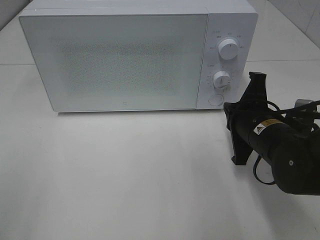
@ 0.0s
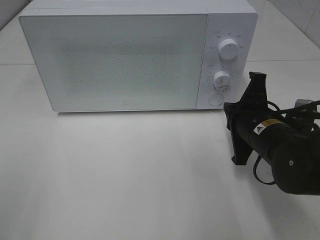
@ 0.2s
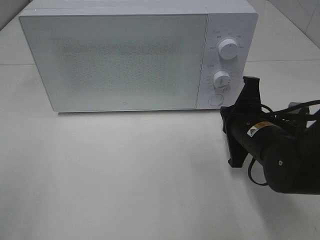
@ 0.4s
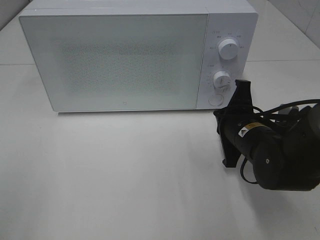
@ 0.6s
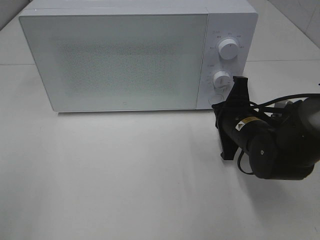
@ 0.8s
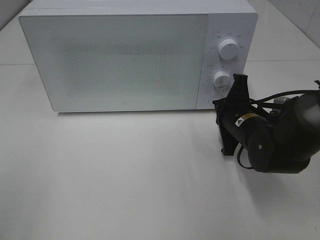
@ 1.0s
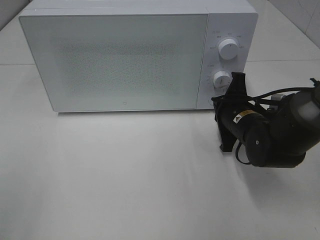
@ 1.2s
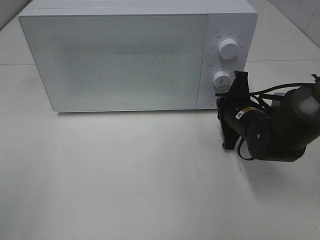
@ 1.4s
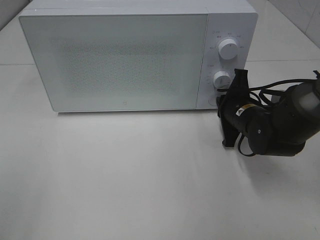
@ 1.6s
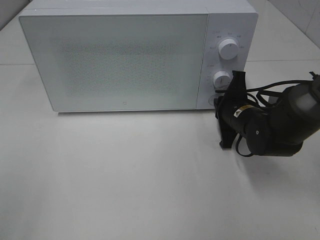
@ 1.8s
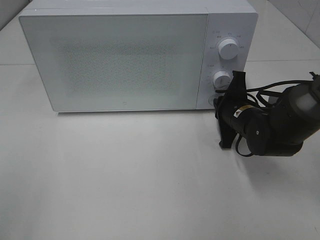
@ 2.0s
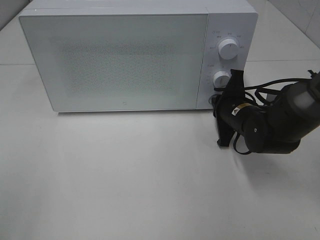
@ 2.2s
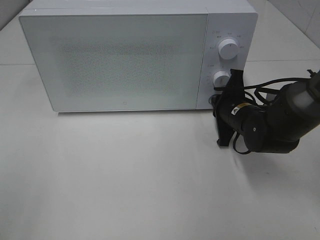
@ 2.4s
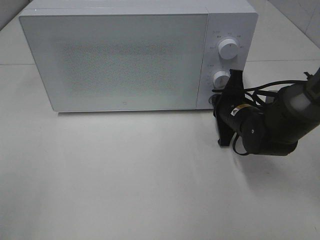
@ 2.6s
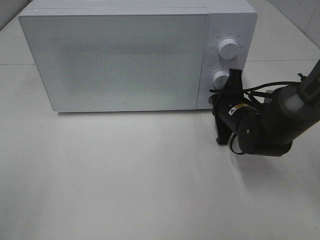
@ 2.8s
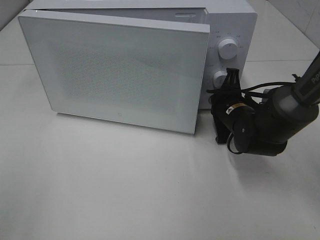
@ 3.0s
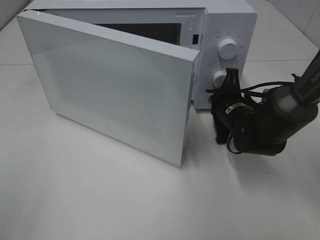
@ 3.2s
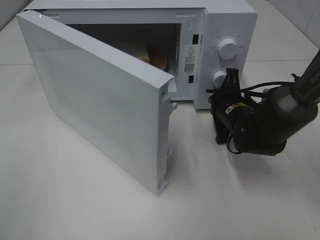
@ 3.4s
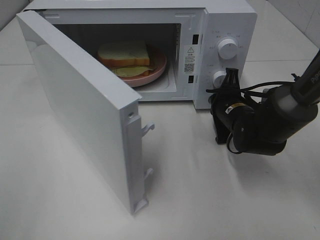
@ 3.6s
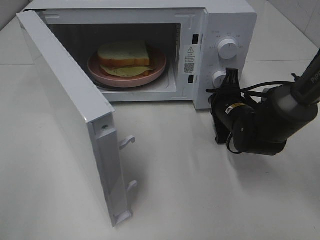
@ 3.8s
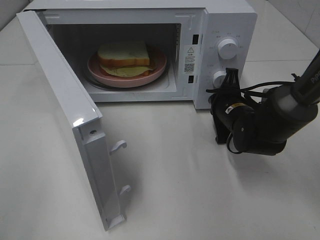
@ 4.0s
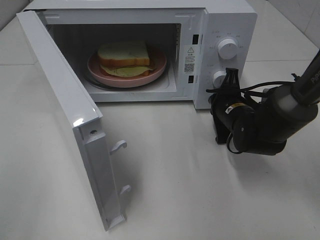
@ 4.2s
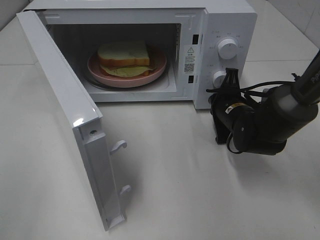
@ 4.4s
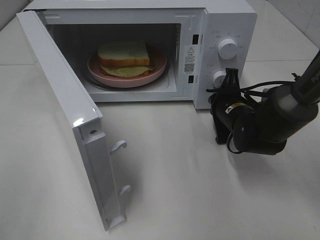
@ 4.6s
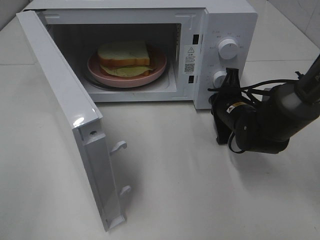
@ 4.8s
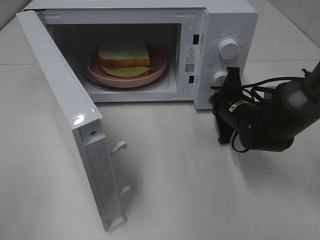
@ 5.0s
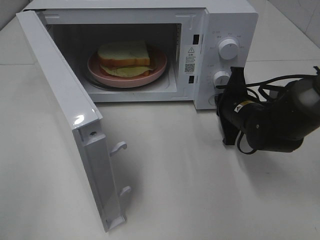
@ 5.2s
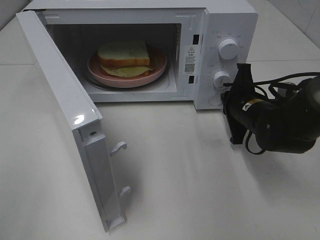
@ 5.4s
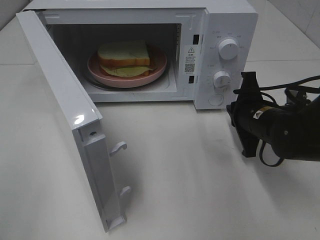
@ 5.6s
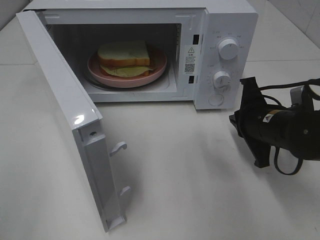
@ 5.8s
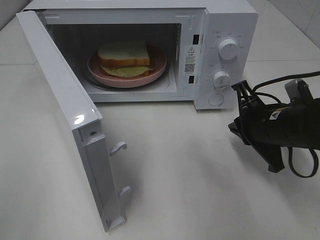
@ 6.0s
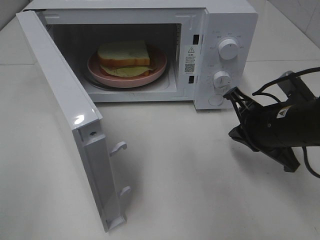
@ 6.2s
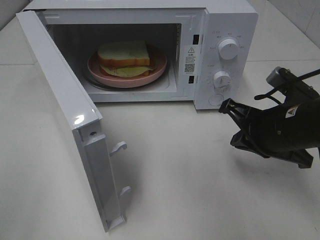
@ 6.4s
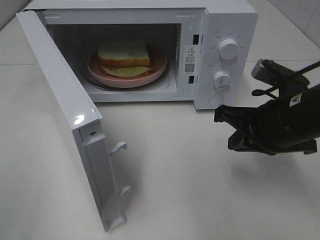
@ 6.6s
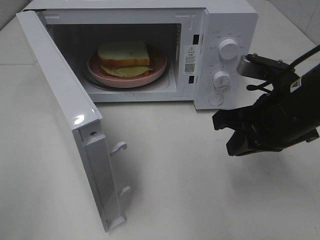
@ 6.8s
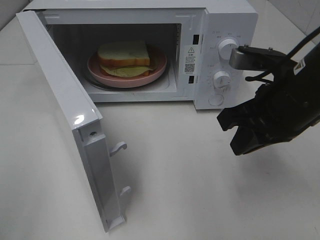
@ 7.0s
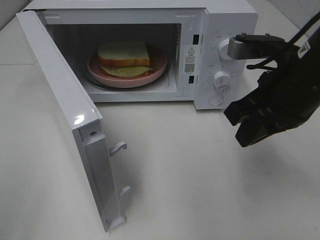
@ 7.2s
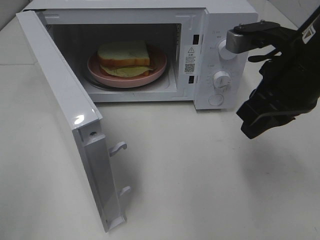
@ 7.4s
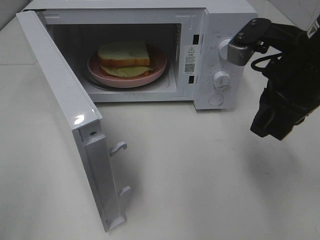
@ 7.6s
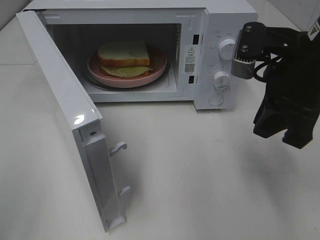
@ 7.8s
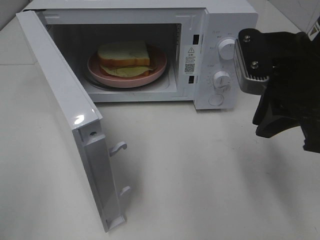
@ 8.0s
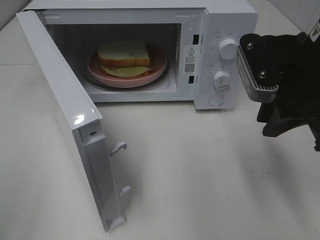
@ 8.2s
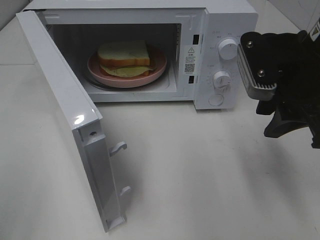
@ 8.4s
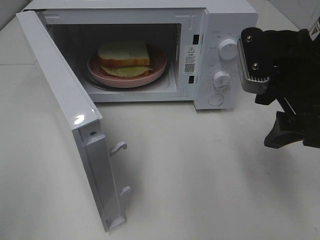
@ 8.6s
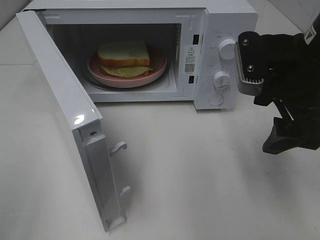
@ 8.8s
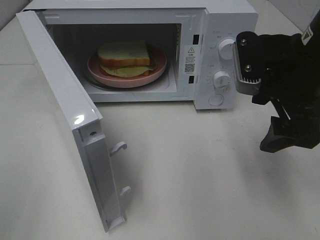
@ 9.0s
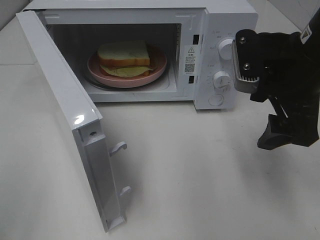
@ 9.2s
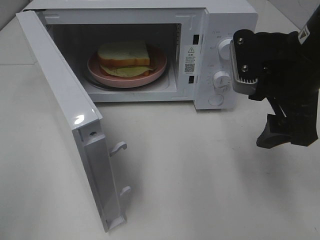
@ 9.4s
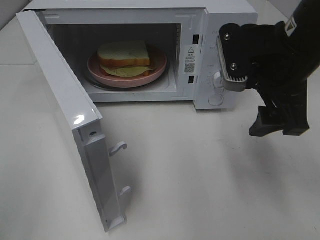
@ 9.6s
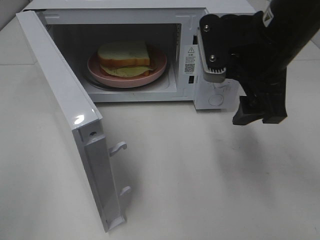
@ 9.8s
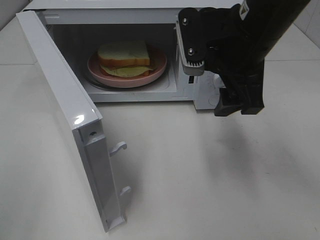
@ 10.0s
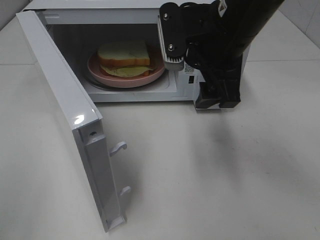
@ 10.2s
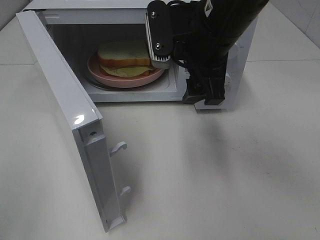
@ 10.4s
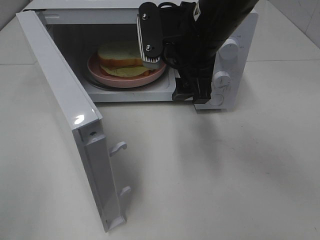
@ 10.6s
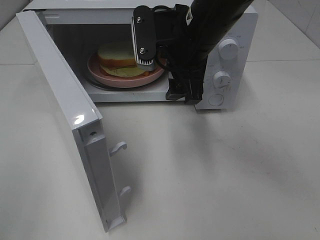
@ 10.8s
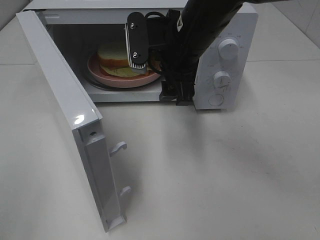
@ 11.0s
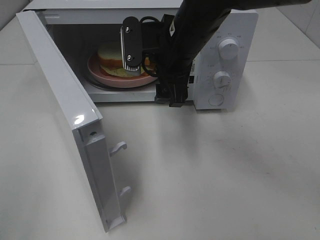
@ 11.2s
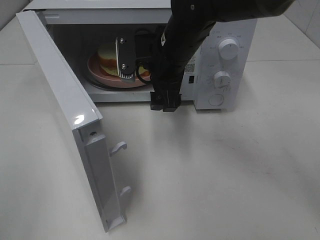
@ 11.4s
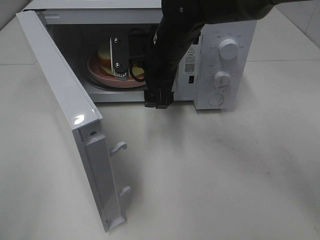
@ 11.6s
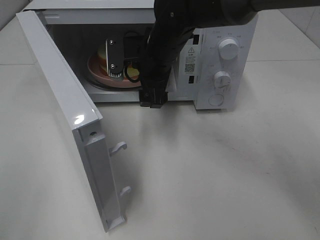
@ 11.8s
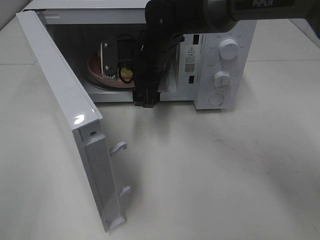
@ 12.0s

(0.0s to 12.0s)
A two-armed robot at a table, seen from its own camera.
Task of the whole recording: Heat Sandwich.
Step, 0.0s - 5.6s: Right hand: press the switch.
0.0s - 1.6s: The right gripper shifts approximately 10 cm forward.
1.6s - 3.0s: The grippers stay close to where they were, moving slightly.
4.4s - 6.0s: The right gripper goes some 10 cm backward and upward.
6.0s - 7.6s: The right gripper is displaced upward by about 15 cm.
7.6s - 9.0s: The right gripper opens up.
9.0s - 10.4s: The right gripper is displaced to the left and forward by some 10 cm.
10.4s - 12.0s: The right gripper moves forward, downward and to the left, roughly 15 cm.

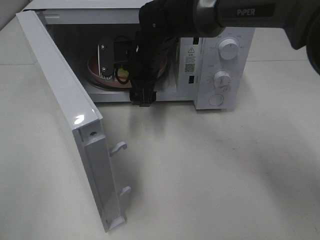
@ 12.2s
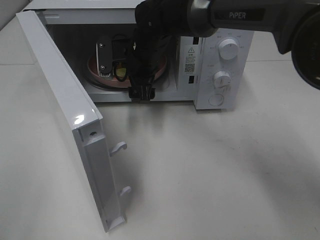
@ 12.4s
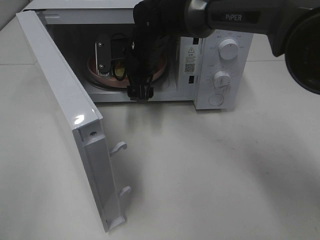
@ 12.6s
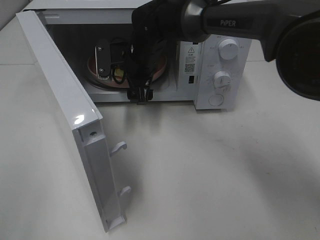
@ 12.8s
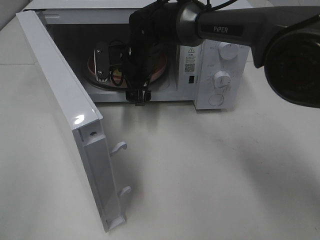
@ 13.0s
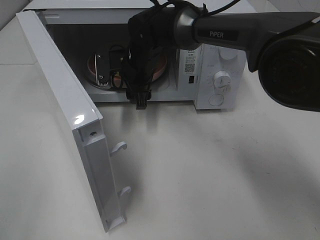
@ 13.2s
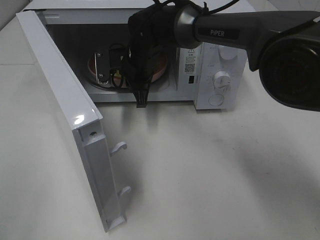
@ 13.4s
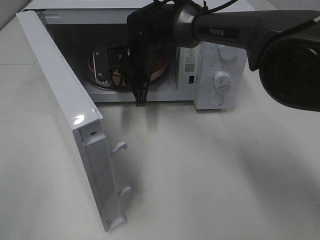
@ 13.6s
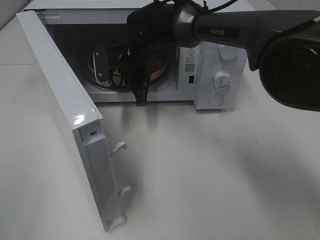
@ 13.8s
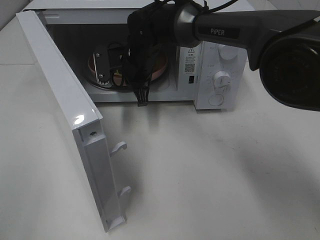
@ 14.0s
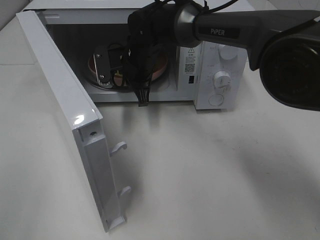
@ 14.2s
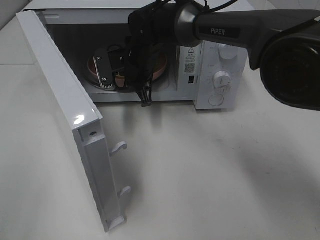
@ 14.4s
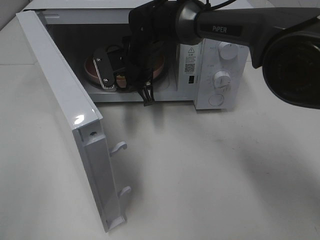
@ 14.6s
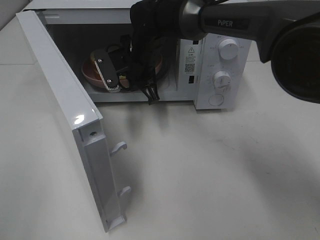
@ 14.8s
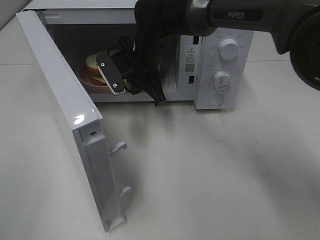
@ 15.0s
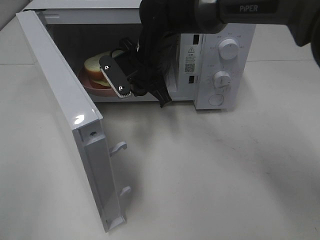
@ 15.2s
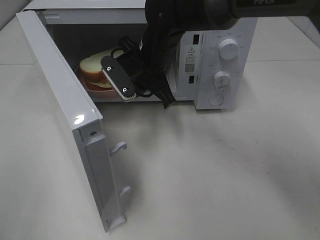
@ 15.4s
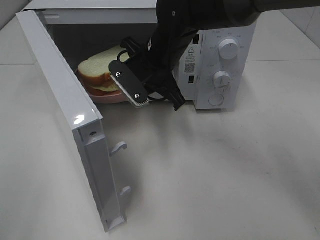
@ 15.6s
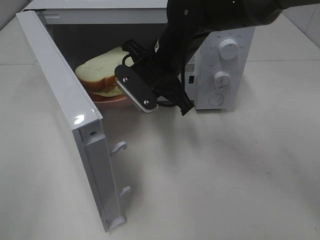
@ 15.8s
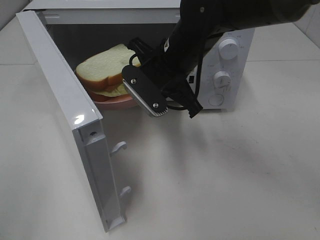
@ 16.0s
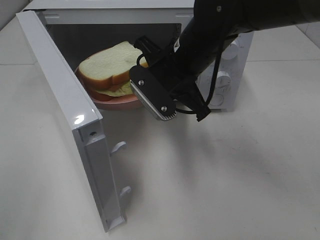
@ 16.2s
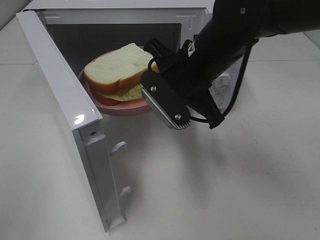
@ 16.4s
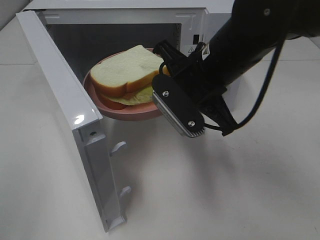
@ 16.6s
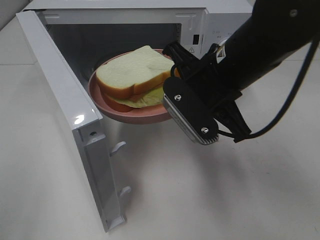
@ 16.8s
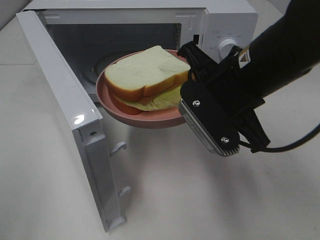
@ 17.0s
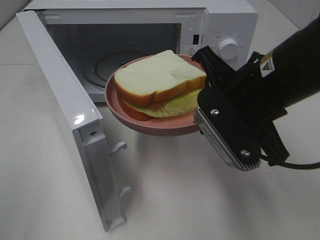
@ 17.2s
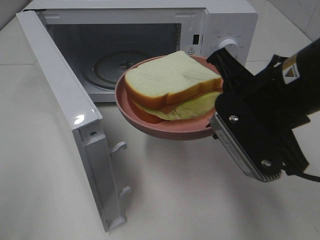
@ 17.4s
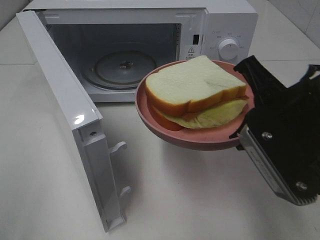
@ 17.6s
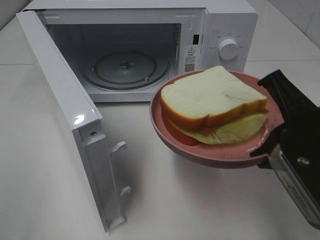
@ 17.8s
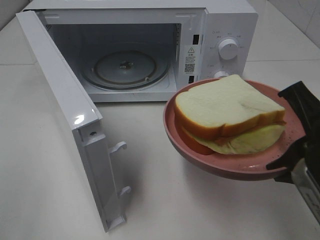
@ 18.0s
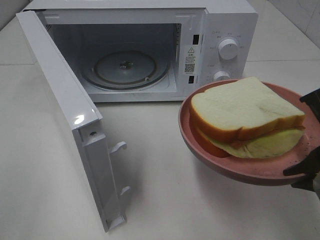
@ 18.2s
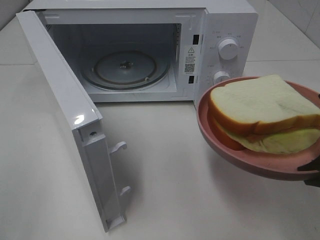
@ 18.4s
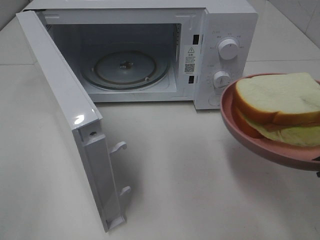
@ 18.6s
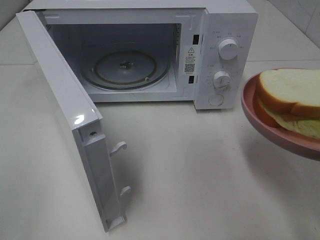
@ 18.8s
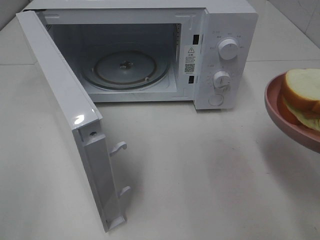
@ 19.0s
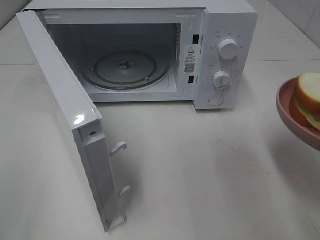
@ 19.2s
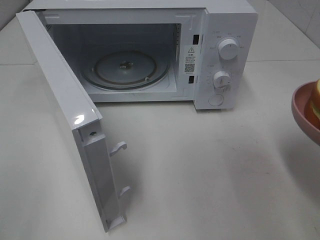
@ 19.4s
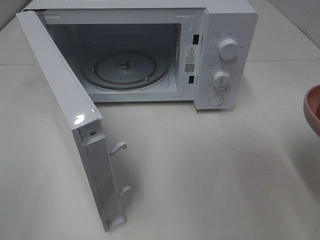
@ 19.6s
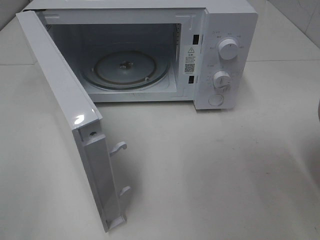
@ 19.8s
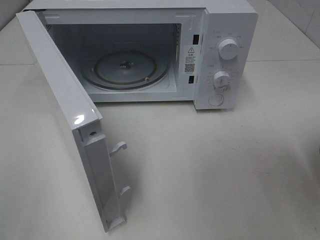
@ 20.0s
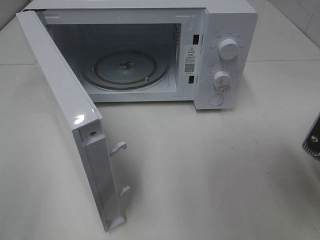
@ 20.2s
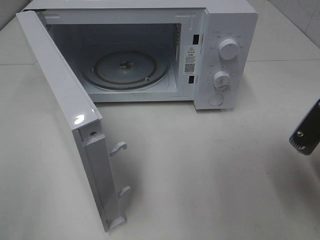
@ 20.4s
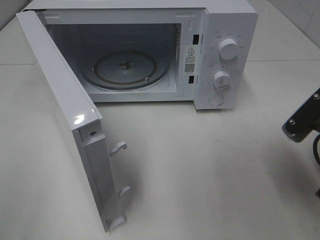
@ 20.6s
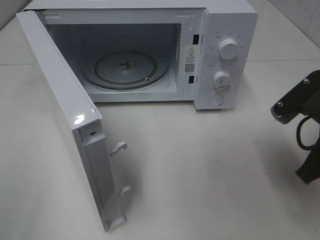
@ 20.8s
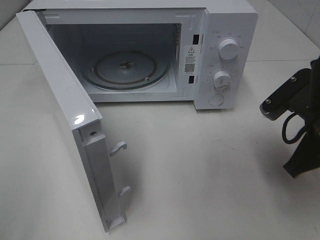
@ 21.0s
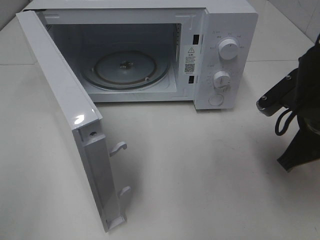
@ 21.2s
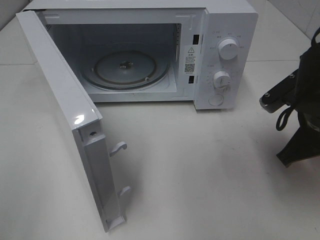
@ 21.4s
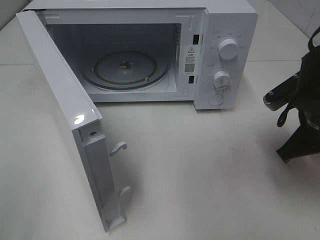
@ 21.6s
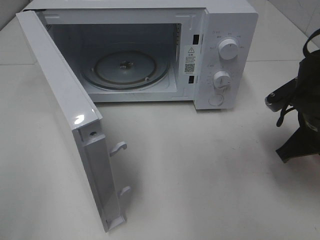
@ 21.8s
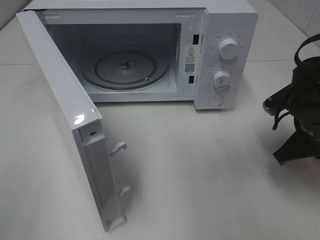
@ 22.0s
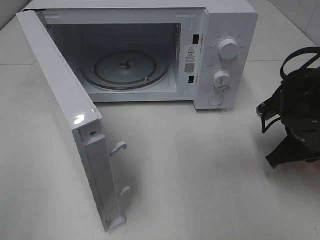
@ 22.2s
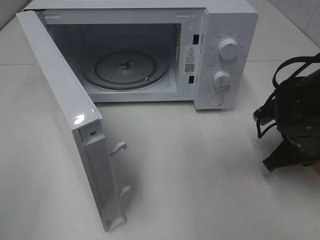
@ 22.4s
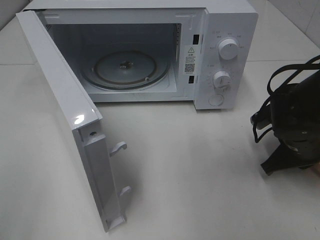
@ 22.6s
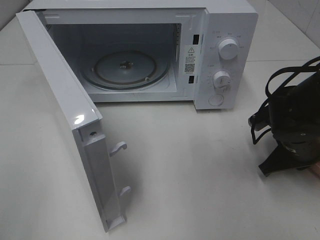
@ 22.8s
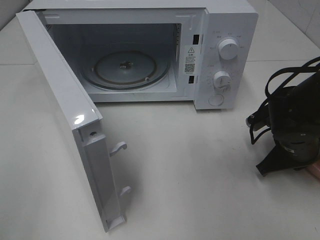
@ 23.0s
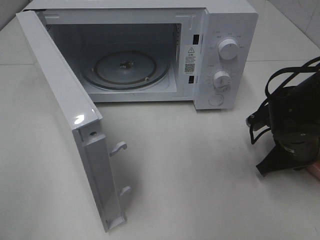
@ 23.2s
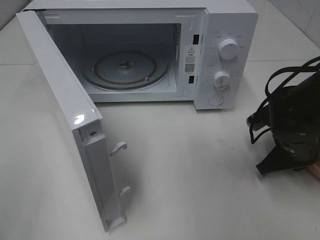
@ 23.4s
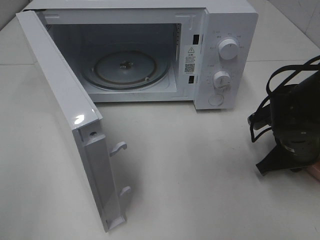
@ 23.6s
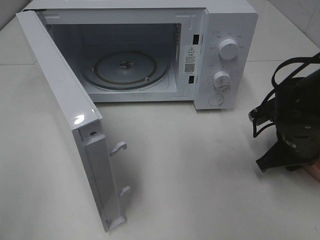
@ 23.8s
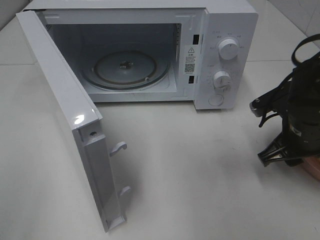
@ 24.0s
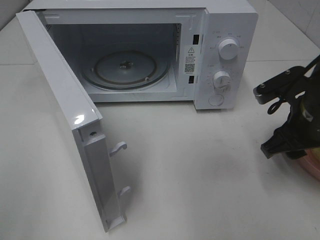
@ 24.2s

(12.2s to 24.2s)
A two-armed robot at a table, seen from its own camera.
Task of the whole recording: Heat Sandwich.
12.2s - 13.8s: The right gripper closes up.
13.8s - 15.2s: The right gripper moves roughly 5 cm.
15.2s - 16.6s: The right gripper is displaced backward, to the right and upward by roughly 15 cm.
16.6s - 18.2s: The right gripper shifts approximately 20 cm backward and to the right.
19.8s - 21.2s: The right gripper heads forward and downward, covering some 10 cm.
21.2s - 22.6s: The right gripper goes approximately 10 cm downward.
22.6s - 24.2s: The right gripper moves upward, approximately 10 cm, and opens.
